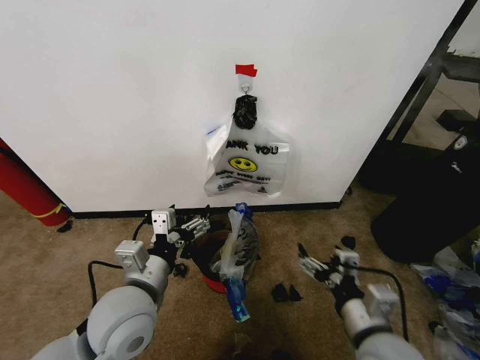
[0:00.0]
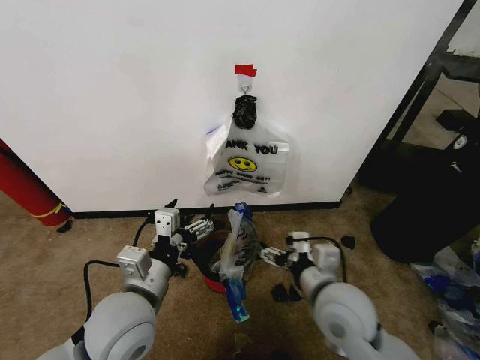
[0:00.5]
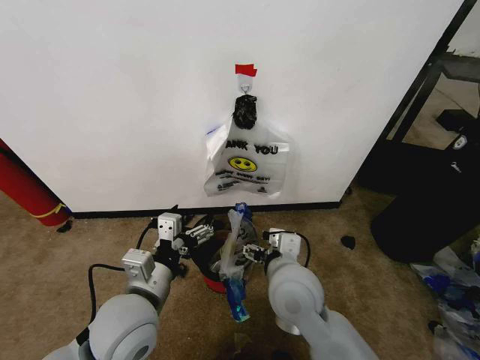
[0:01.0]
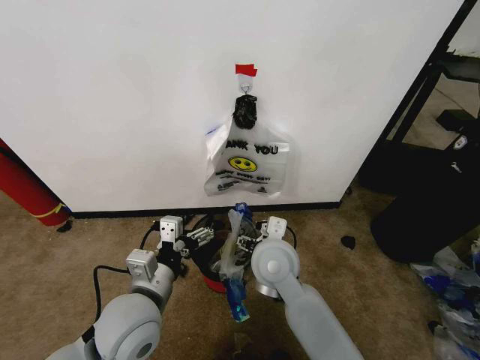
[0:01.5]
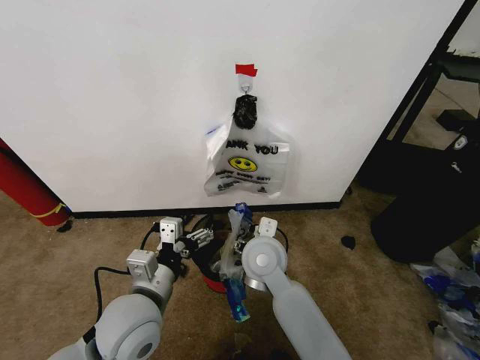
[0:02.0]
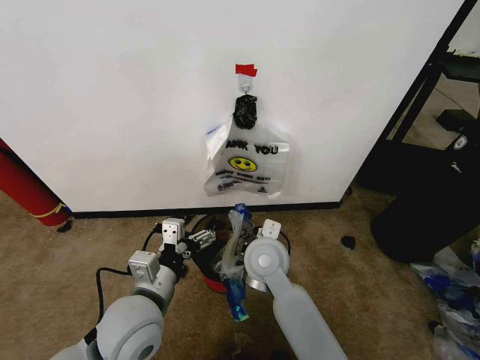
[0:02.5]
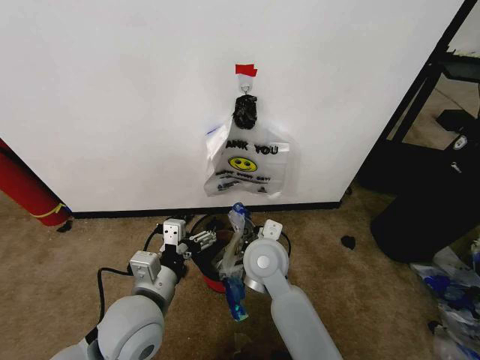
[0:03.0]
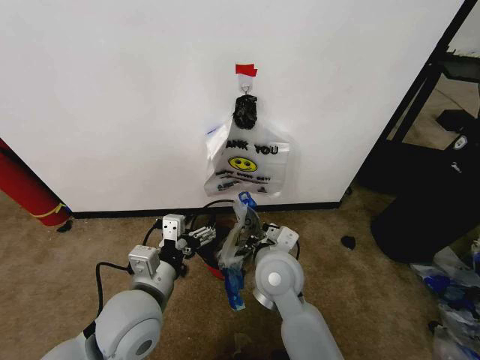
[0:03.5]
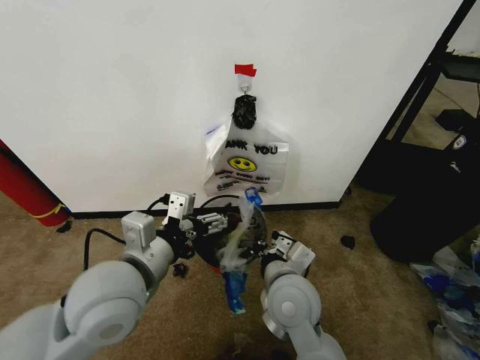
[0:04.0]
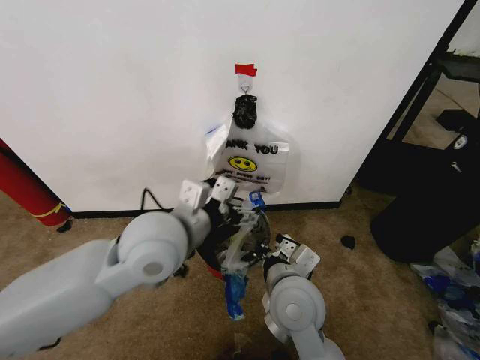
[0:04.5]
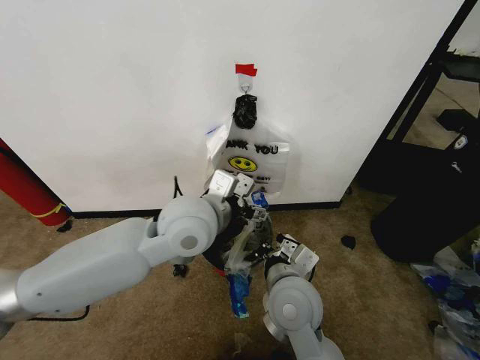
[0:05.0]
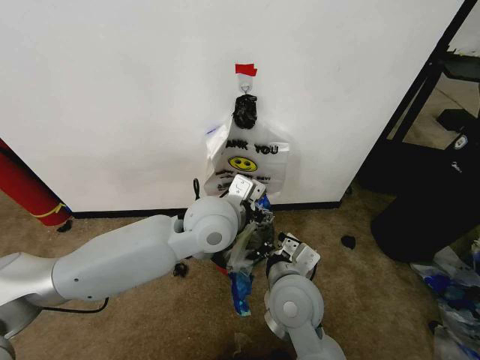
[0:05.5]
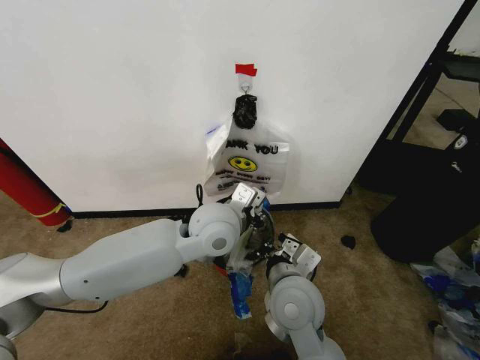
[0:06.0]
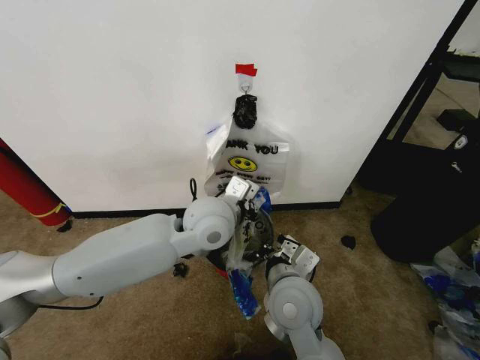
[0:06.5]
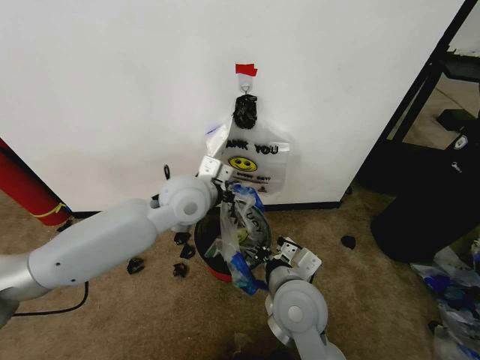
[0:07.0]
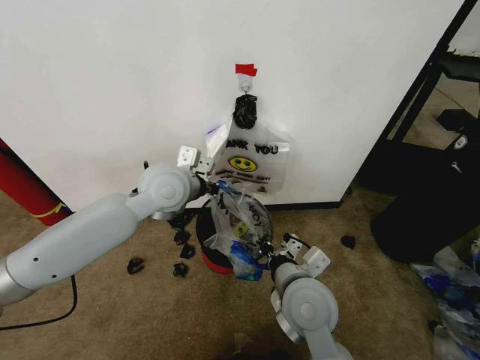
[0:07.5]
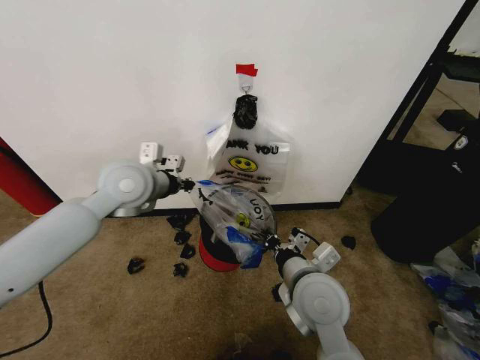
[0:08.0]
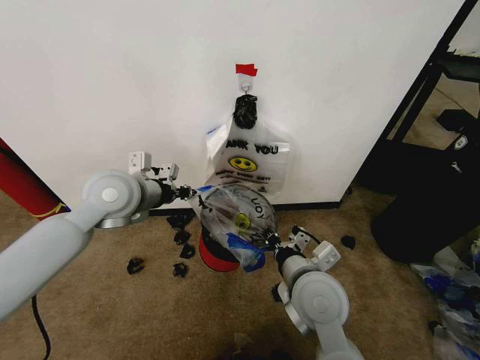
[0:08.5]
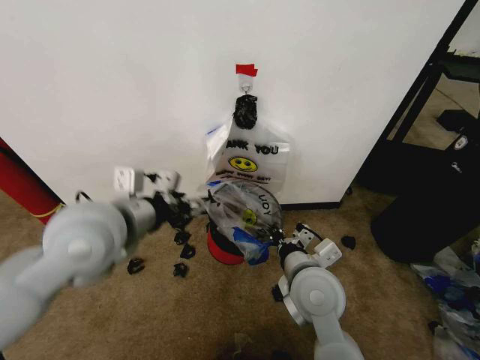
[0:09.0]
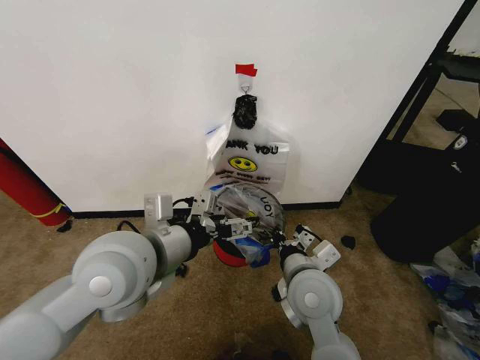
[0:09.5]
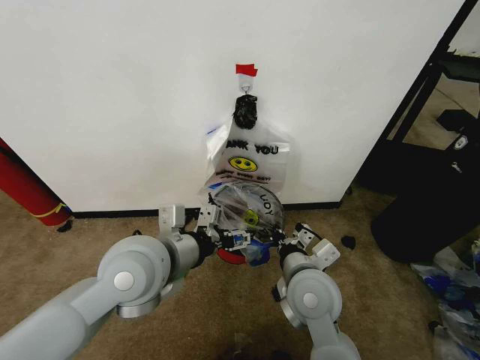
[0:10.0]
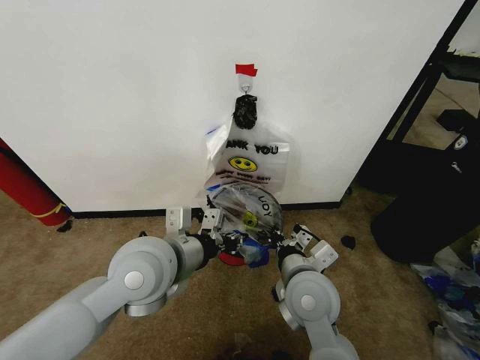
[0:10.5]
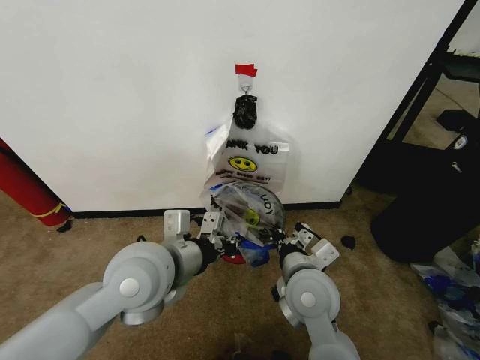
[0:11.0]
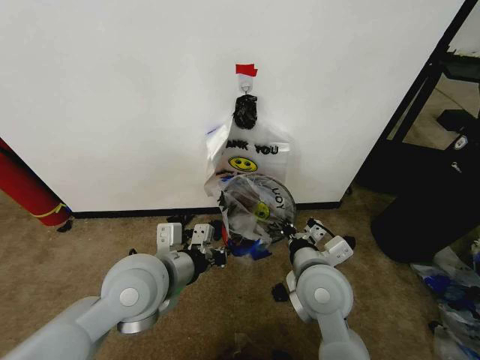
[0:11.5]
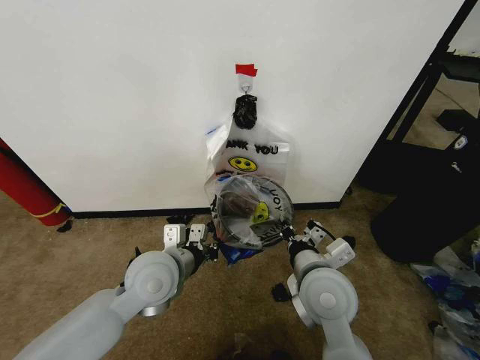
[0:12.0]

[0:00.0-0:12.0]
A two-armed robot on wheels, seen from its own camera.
Task of the whole recording: Pick up the garbage bag from the wall and place it over the trash bin.
0:00.0 to 0:02.0: The right gripper goes about 25 cm to the left and forward.
0:02.0 to 0:04.0: The left gripper moves upward, about 10 cm; the right gripper travels backward by approximately 10 cm, and closes.
0:04.0 to 0:06.0: The left gripper travels forward and to the right by roughly 20 cm, and closes its fingers.
0:06.0 to 0:08.0: The left gripper is displaced to the left by roughly 15 cm.
0:08.0 to 0:10.0: The left gripper moves backward and to the right, approximately 15 cm, and opens.
0:10.0 to 0:12.0: The left gripper heads downward, covering about 10 cm, and closes up.

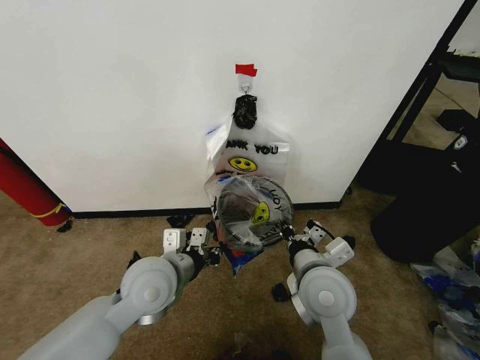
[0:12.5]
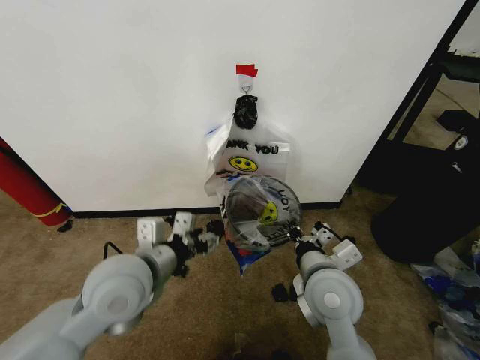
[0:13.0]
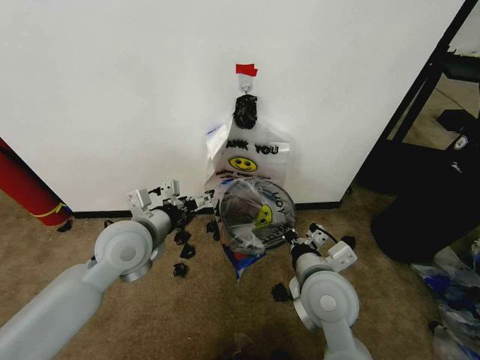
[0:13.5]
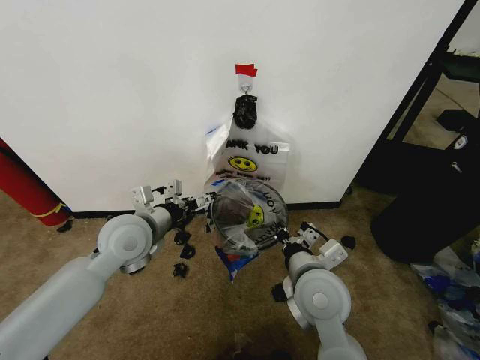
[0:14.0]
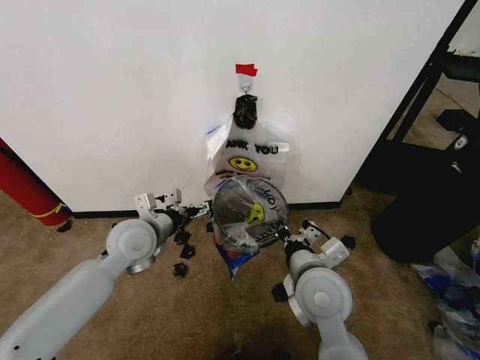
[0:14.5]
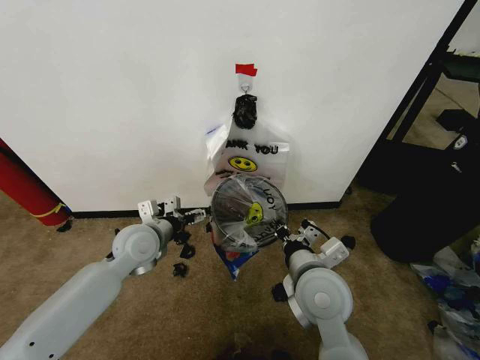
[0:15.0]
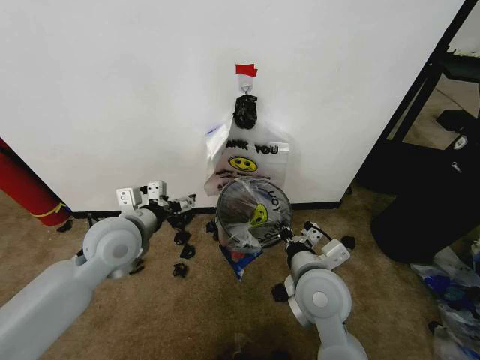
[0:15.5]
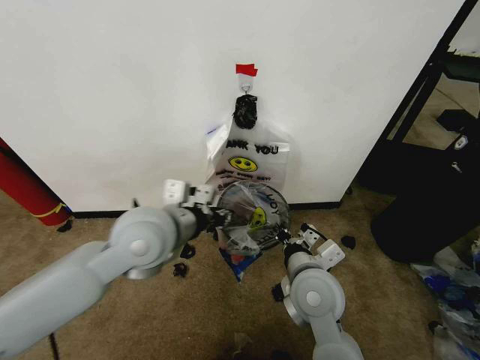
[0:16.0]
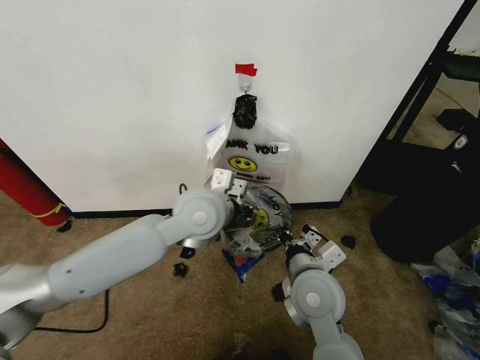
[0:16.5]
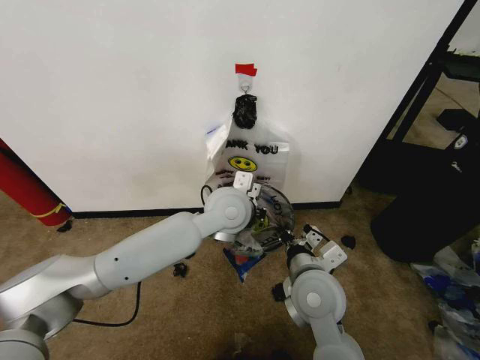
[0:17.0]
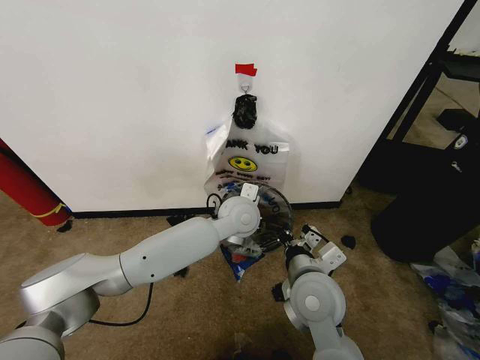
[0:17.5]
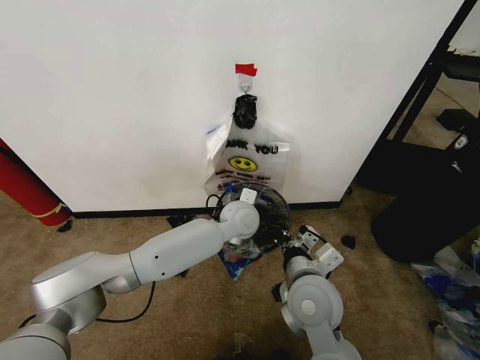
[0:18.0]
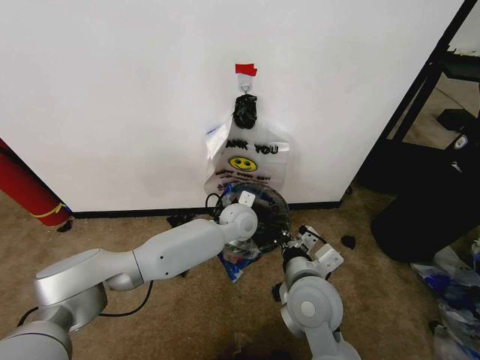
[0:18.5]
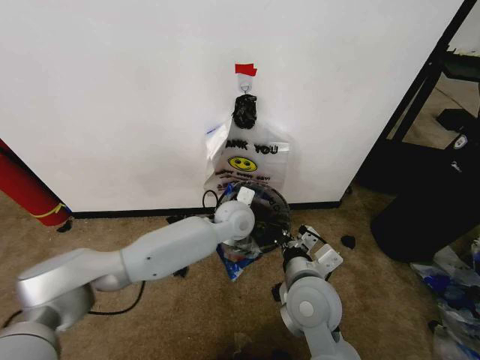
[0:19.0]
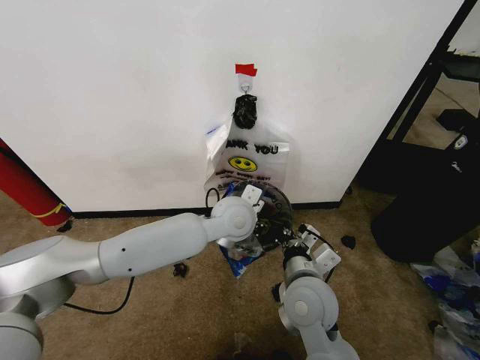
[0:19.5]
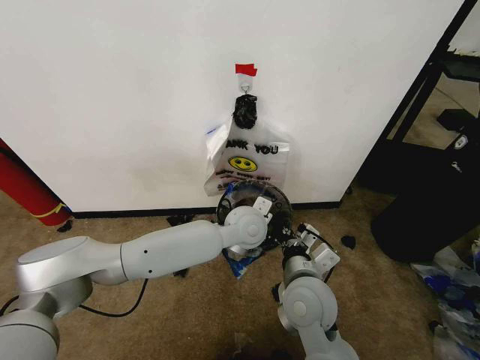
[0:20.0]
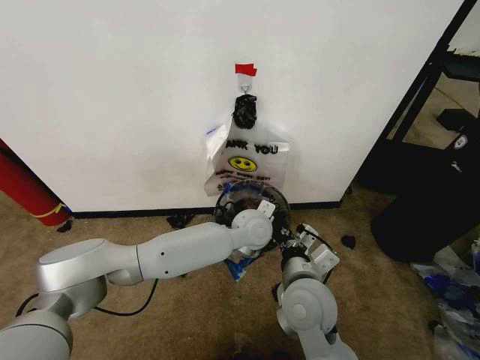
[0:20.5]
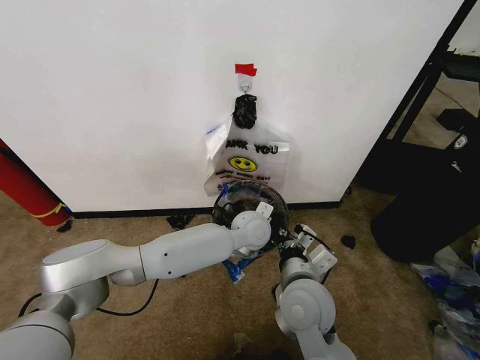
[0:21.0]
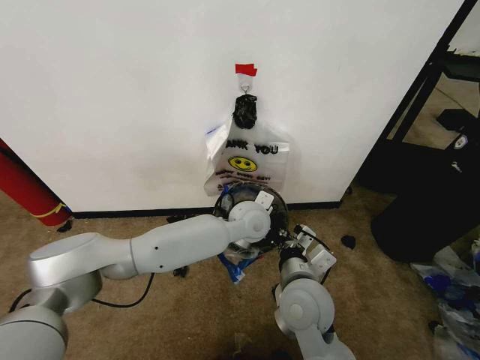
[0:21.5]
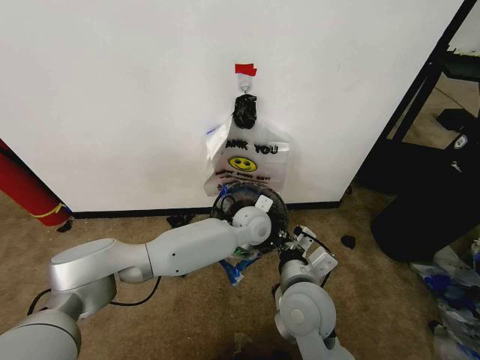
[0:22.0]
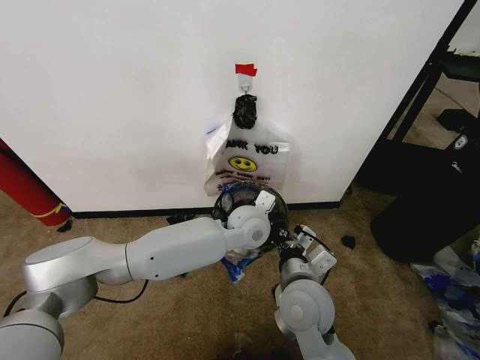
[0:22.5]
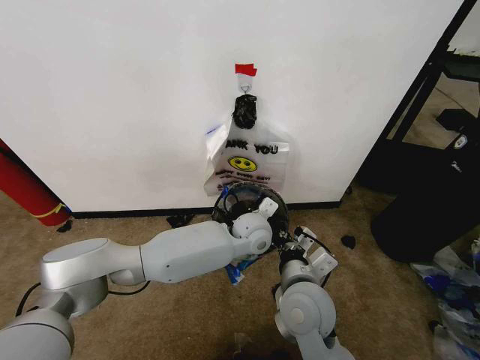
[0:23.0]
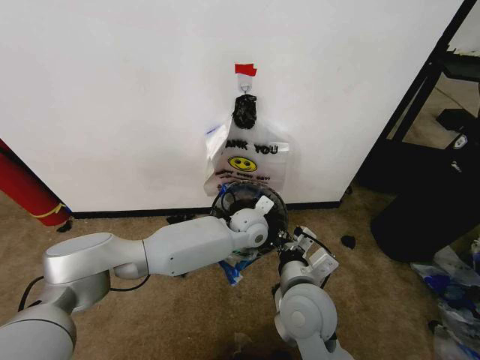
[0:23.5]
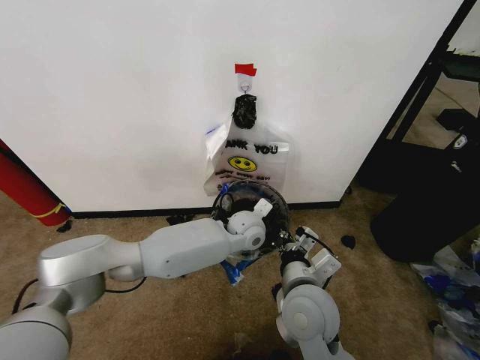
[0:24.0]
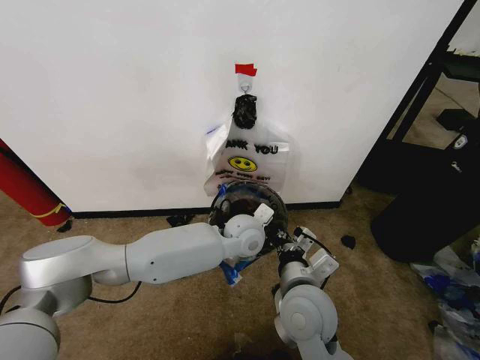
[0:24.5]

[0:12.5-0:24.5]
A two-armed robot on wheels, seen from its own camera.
Task of the whole recording: Pick up the garbage bag from the wall and place it over the trash bin.
0:12.5 to 0:14.5: The left gripper heads forward and to the left, covering some 10 cm, and opens its fingers.
0:14.5 to 0:16.5: The left gripper goes roughly 20 cm to the right and upward, and closes up.
0:16.5 to 0:18.5: The left gripper heads downward, forward and to the right, covering about 20 cm.
0:18.5 to 0:20.5: The left gripper moves roughly 10 cm upward and comes back.
0:20.5 to 0:22.5: There are only small adjustments of the grippers.

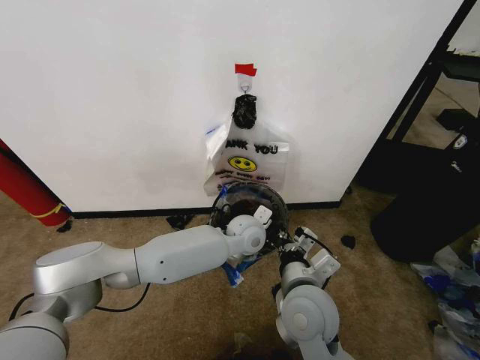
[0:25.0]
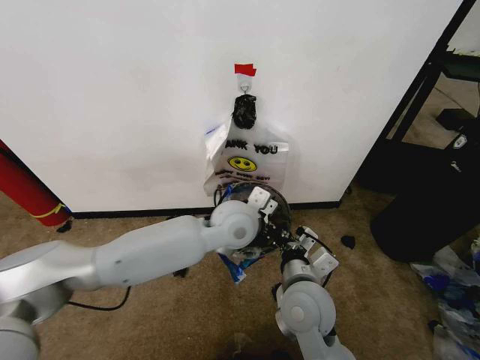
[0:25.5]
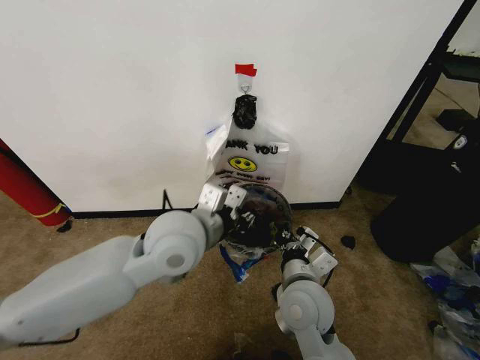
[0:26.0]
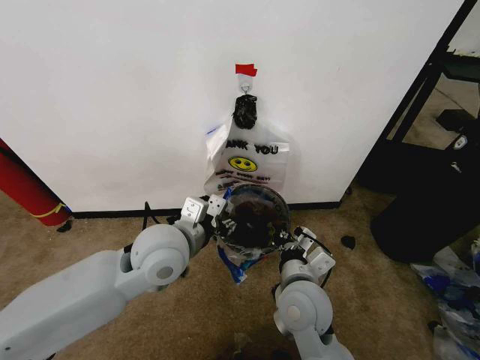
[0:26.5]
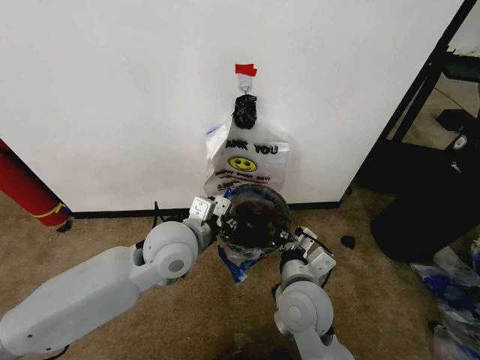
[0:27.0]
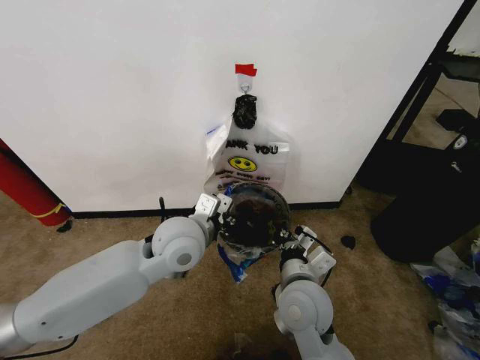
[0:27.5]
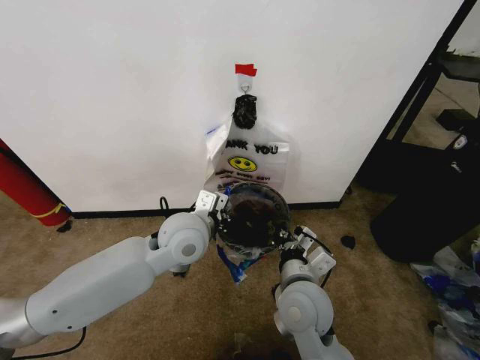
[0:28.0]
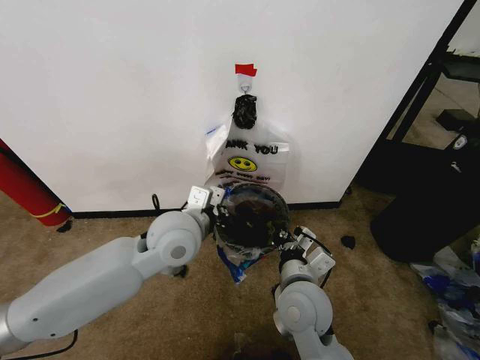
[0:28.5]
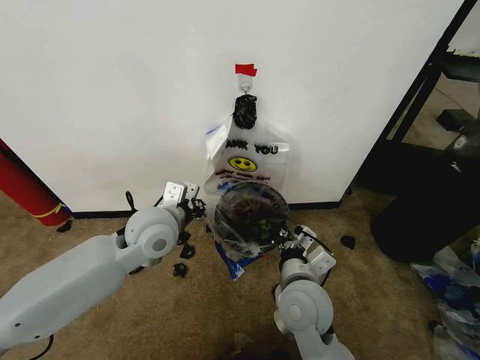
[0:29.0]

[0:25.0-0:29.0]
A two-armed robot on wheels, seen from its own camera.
Task of the whole recording: Pick up the garbage bag from the wall and place it over the trash bin.
0:25.0 to 0:27.0: The left gripper shifts about 20 cm to the left, backward and upward.
0:27.0 to 0:29.0: The left gripper shifts by about 5 cm.
